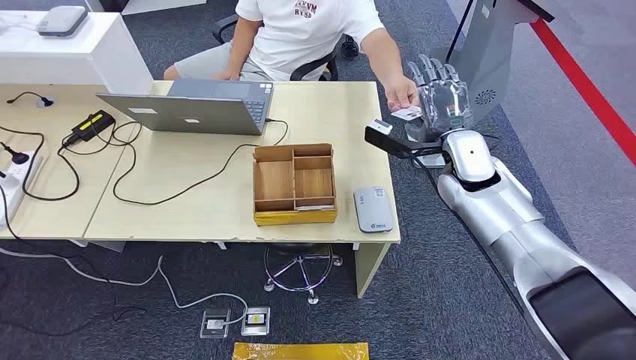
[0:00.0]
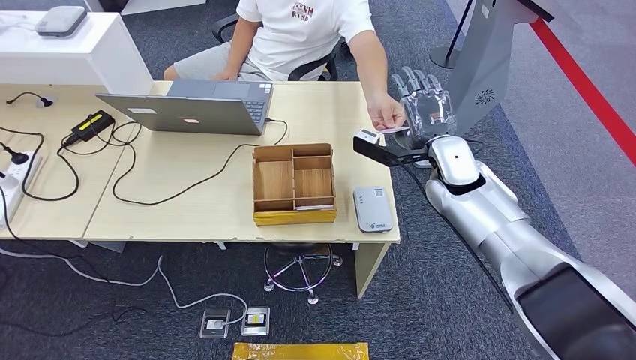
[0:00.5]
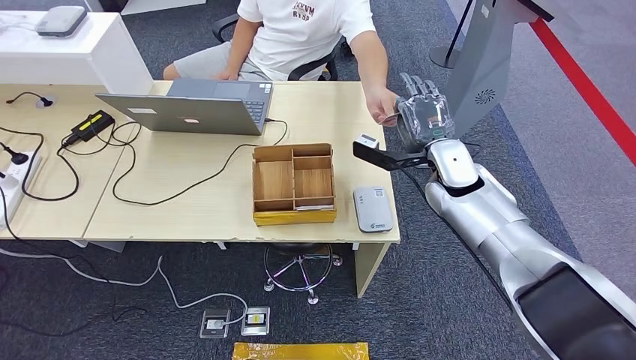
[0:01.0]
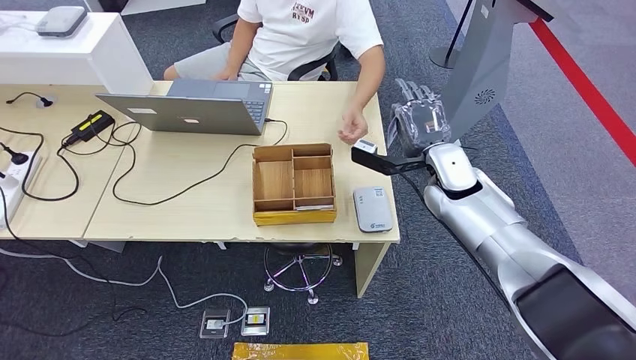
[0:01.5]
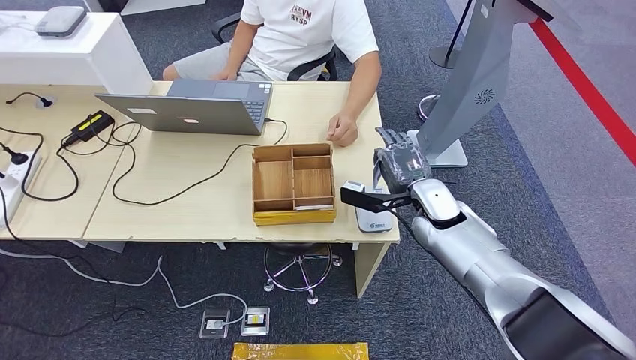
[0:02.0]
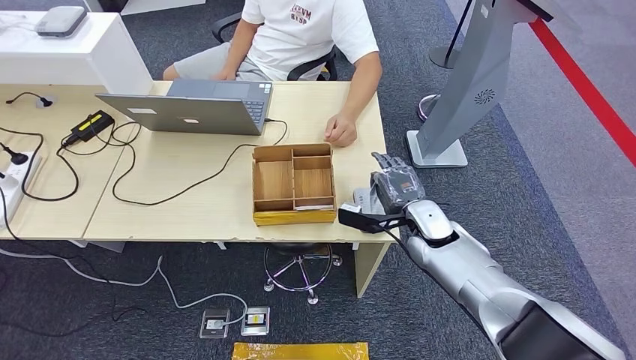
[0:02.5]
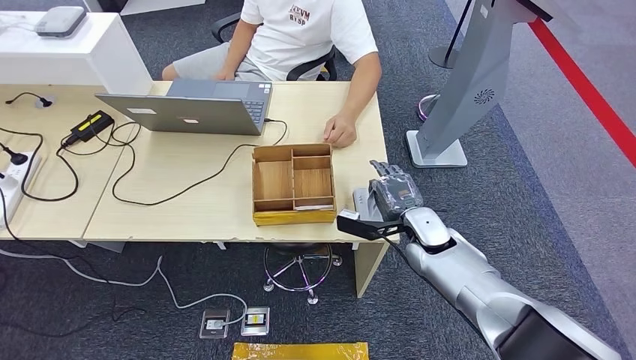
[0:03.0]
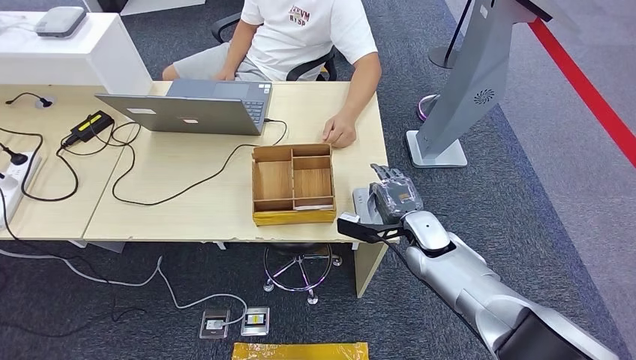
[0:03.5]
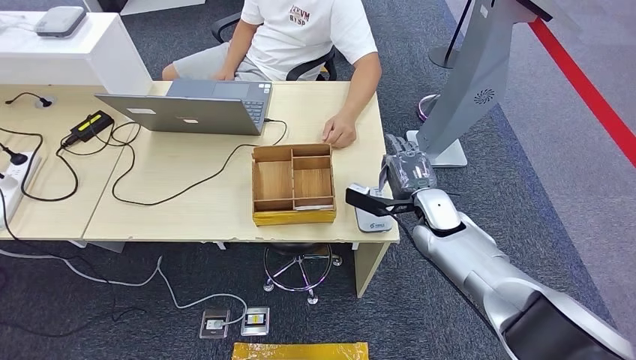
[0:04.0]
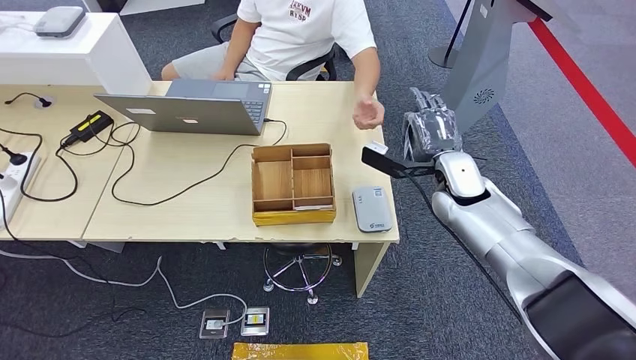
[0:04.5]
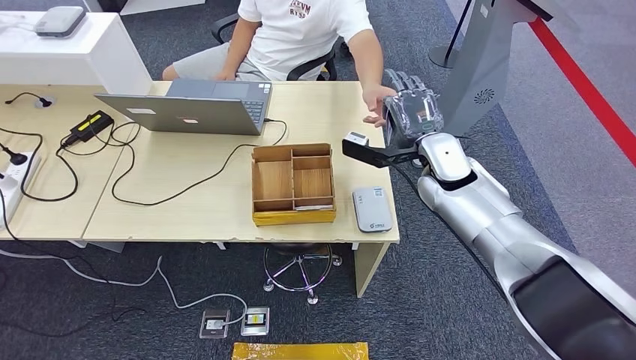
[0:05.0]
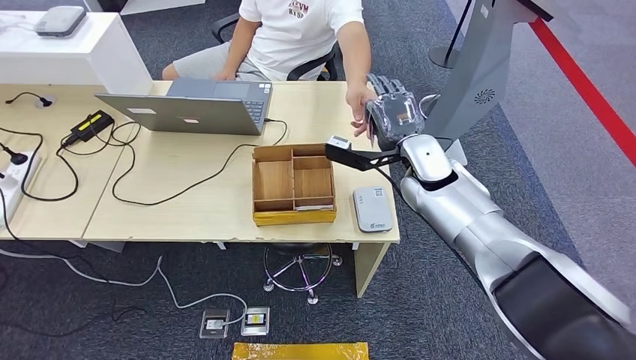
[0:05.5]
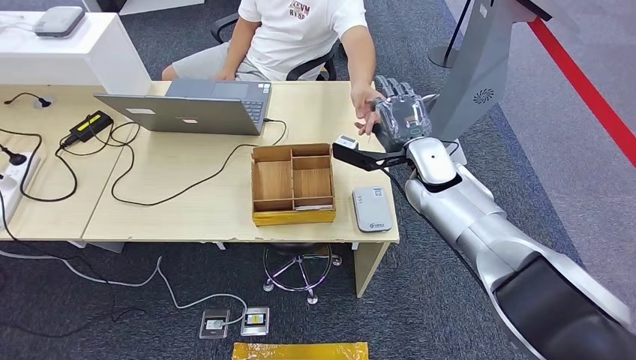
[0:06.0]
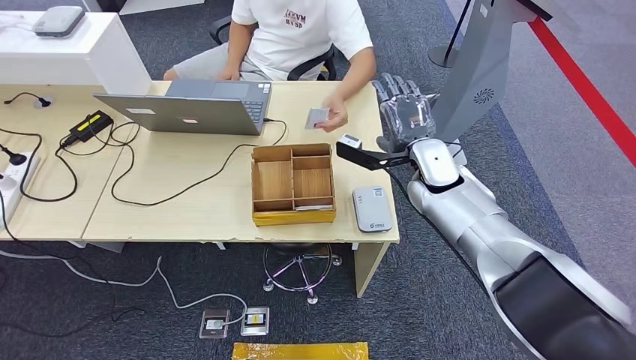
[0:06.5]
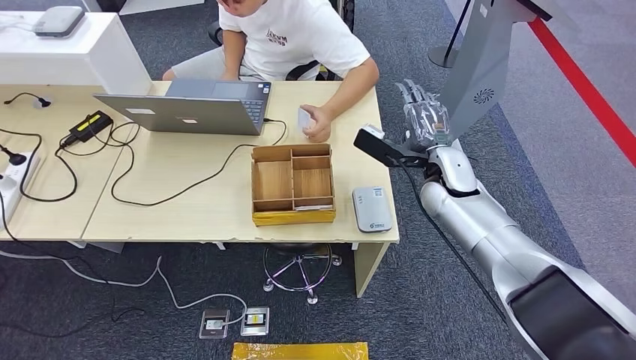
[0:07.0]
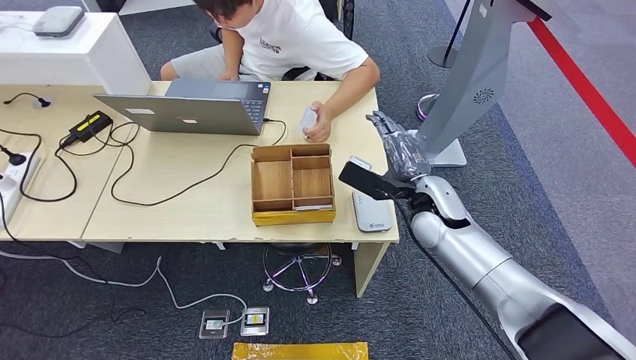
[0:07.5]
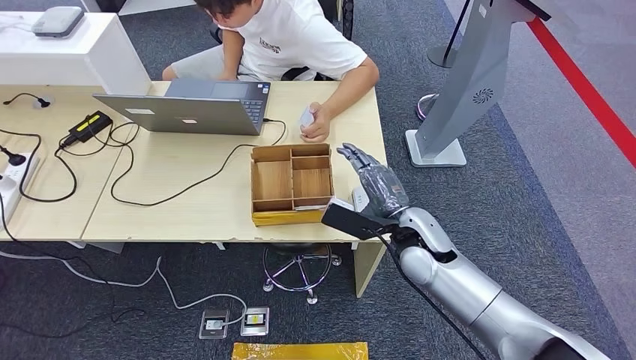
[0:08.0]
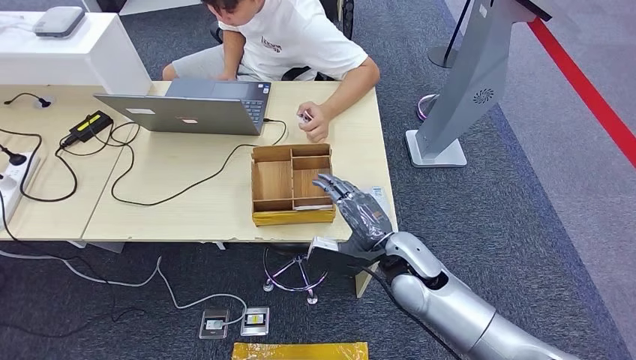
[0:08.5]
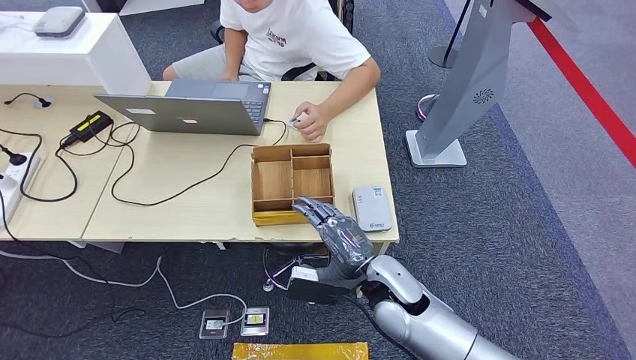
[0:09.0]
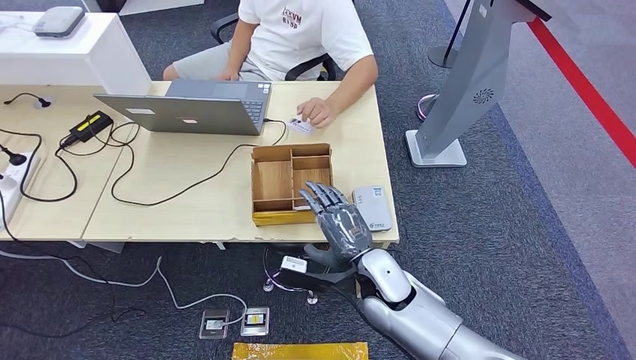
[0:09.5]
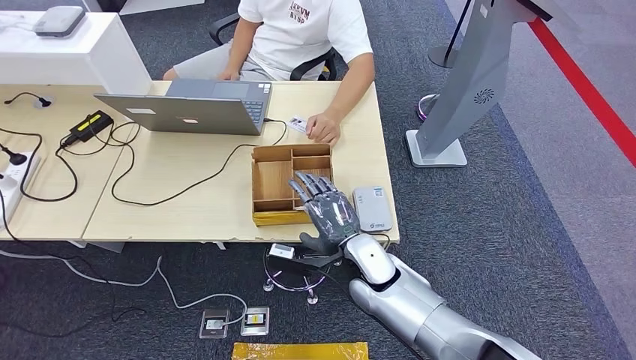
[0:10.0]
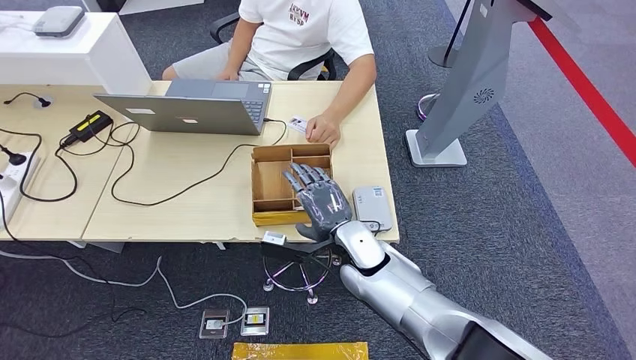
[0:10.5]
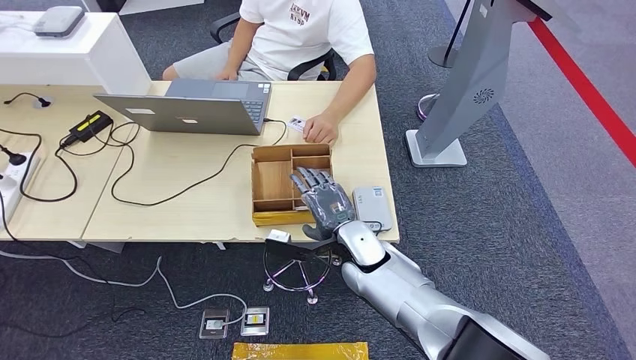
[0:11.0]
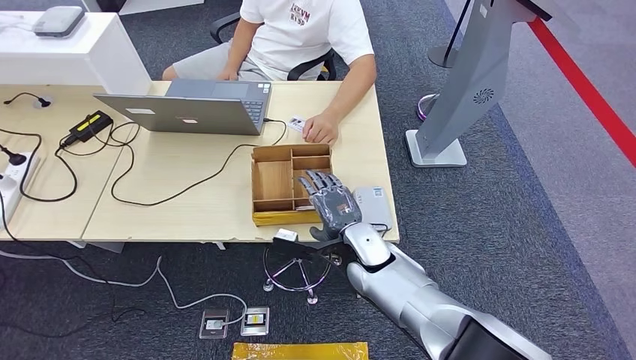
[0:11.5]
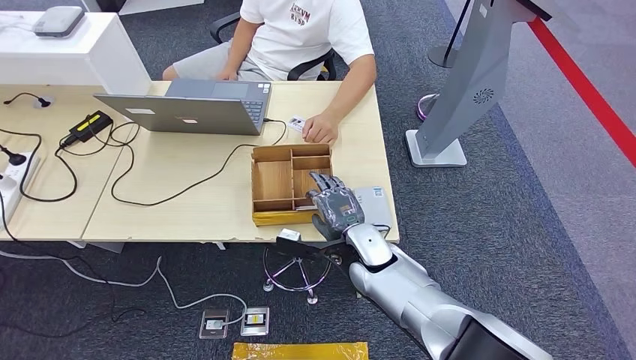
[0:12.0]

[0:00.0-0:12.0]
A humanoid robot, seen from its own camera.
Step, 0:00.0 to 0:03.0: Take the ID card from the person's hand.
Step, 0:03.5 to 0:05.0: Place the ID card on the card reader.
Step, 0:05.5 to 0:08.0: Hand the ID card to the person.
0:04.0 to 0:06.0: The right hand shifts about 10 cm upward.
0:08.0 to 0:10.0: The right hand moves to the left and downward, roughly 10 cm.
0:10.0 to 0:12.0: The hands stay close to where they were, moving slightly.

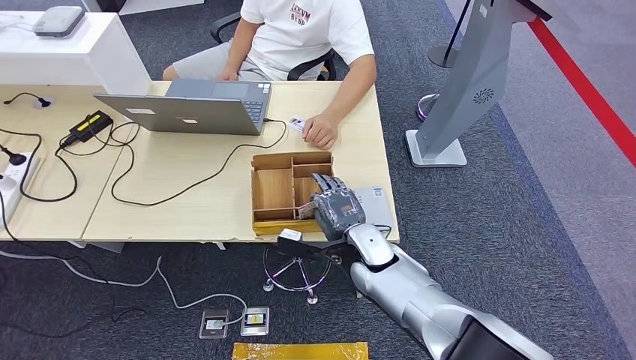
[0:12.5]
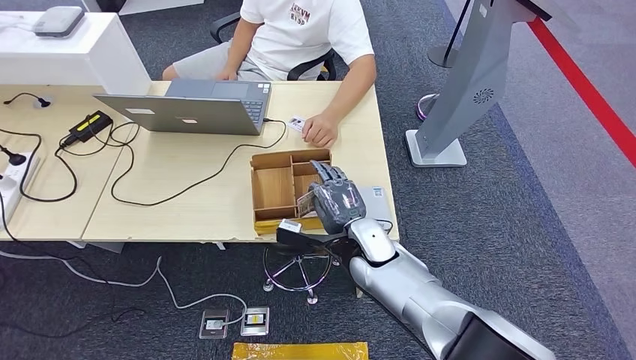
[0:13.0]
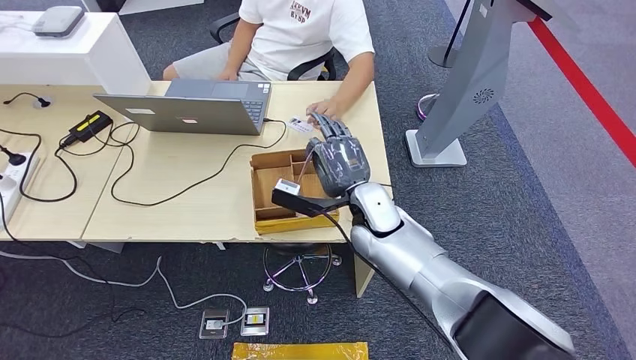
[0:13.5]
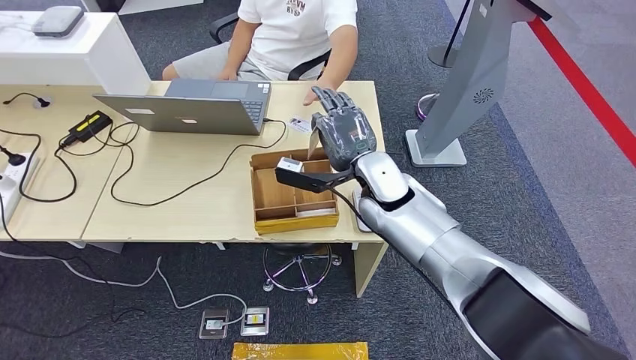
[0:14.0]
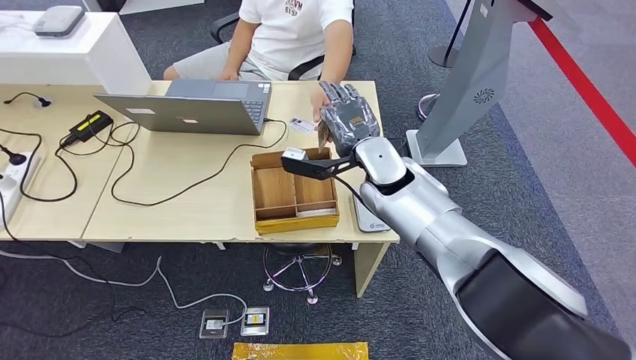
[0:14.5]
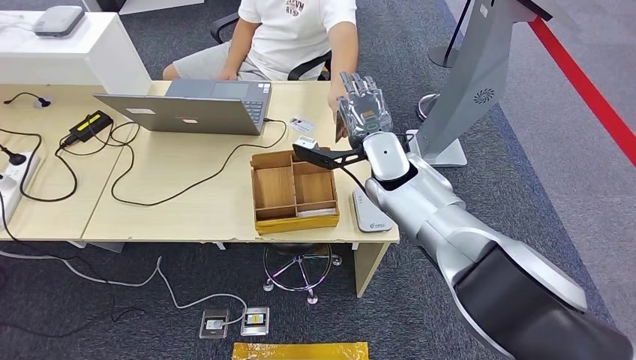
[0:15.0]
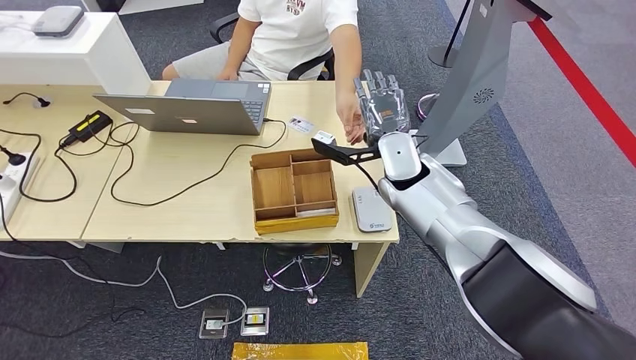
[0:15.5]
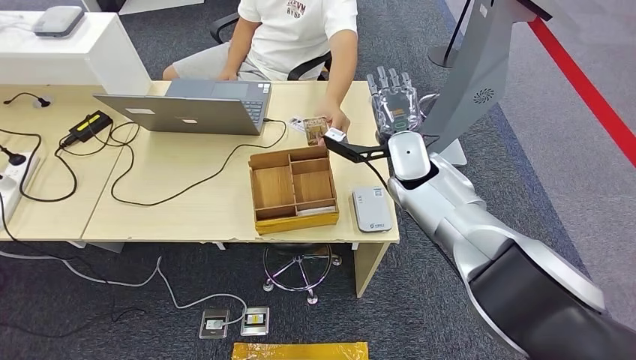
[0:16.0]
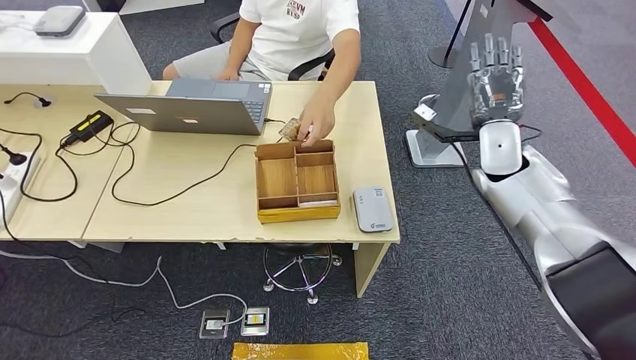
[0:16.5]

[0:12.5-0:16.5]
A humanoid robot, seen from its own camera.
Step, 0:14.0 to 0:16.5: Hand the room key to the person.
0:12.5 to 0:14.5: The right hand moves upward and forward, approximately 15 cm.
